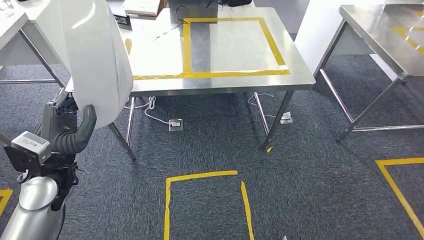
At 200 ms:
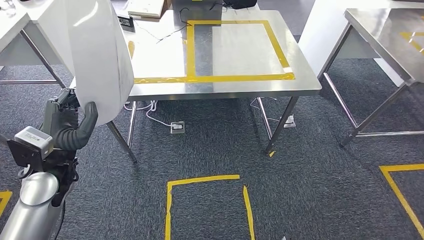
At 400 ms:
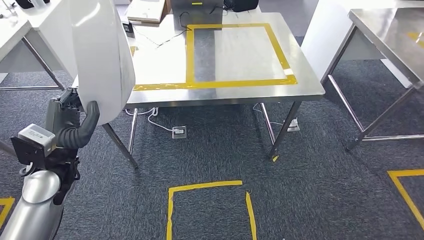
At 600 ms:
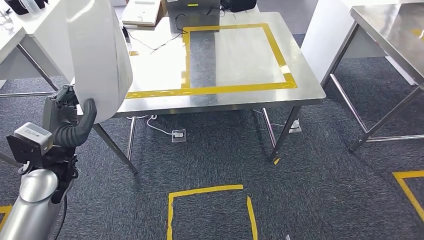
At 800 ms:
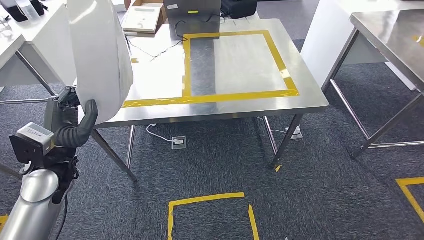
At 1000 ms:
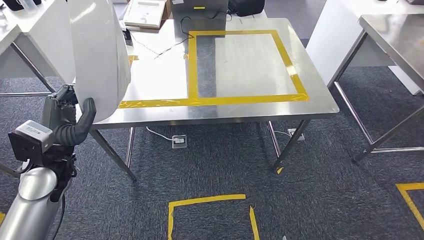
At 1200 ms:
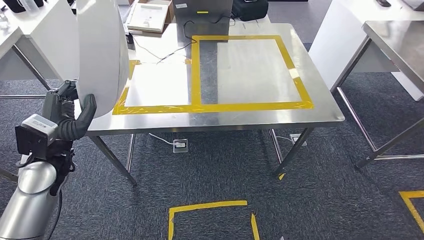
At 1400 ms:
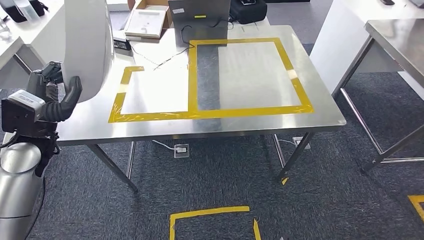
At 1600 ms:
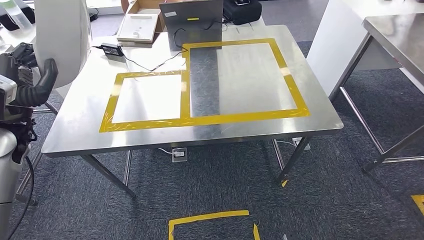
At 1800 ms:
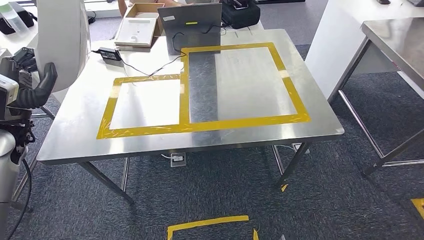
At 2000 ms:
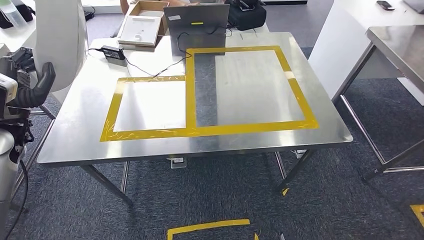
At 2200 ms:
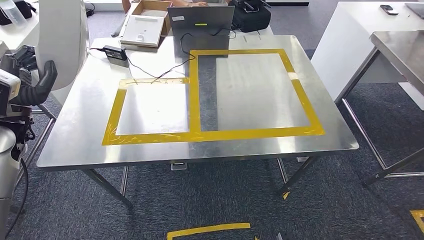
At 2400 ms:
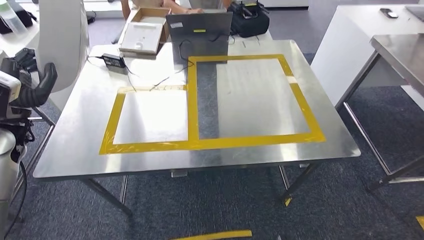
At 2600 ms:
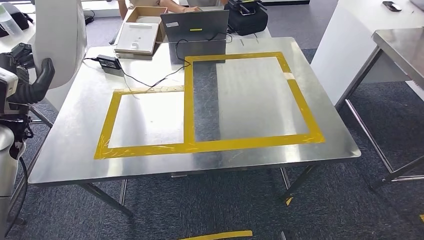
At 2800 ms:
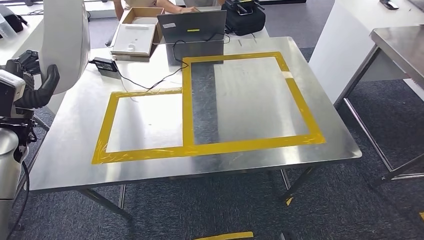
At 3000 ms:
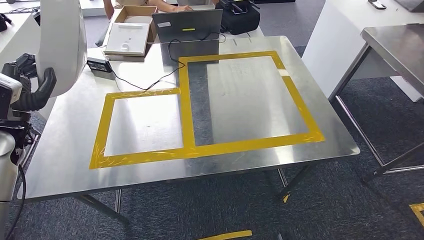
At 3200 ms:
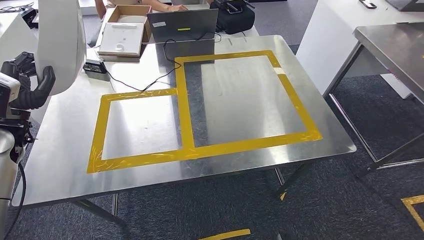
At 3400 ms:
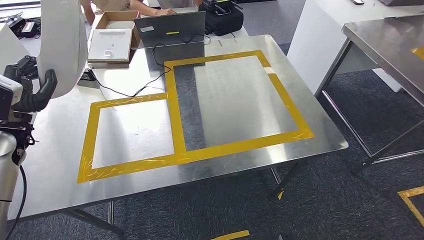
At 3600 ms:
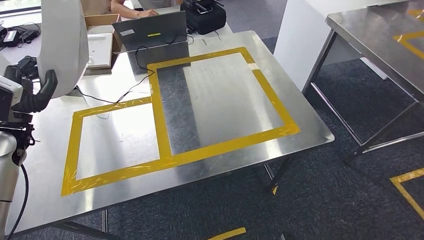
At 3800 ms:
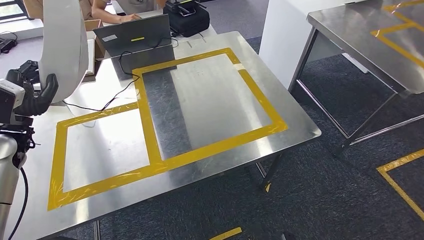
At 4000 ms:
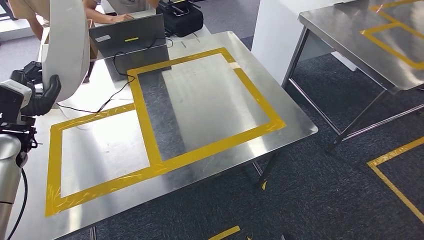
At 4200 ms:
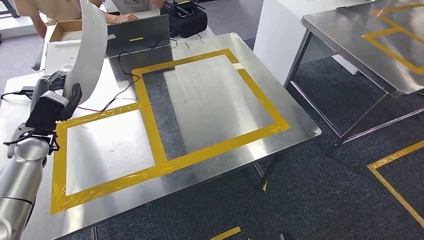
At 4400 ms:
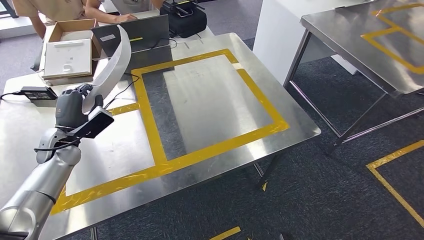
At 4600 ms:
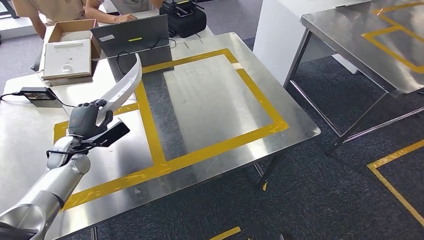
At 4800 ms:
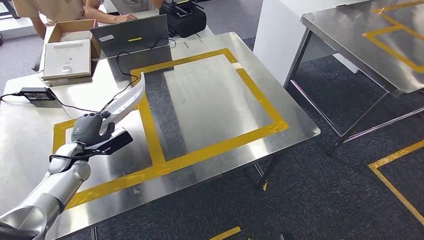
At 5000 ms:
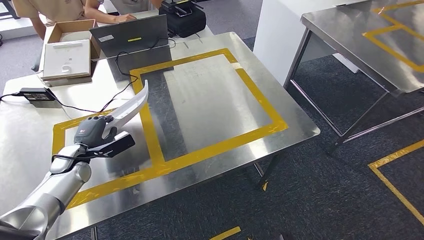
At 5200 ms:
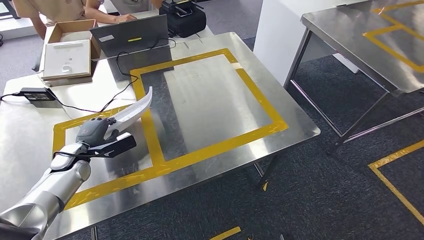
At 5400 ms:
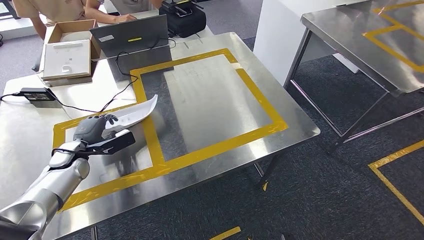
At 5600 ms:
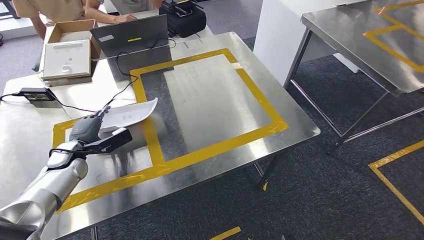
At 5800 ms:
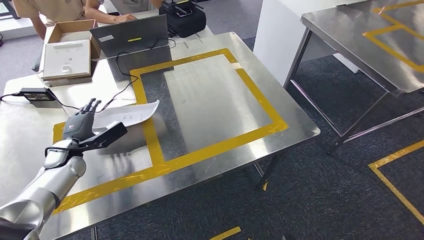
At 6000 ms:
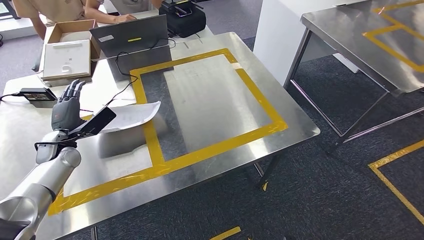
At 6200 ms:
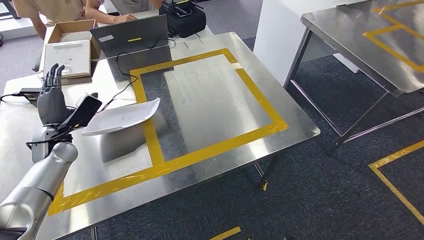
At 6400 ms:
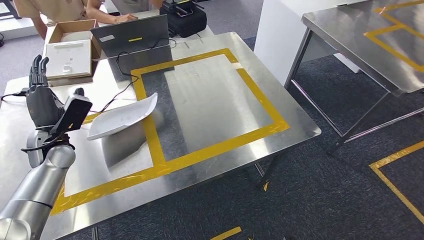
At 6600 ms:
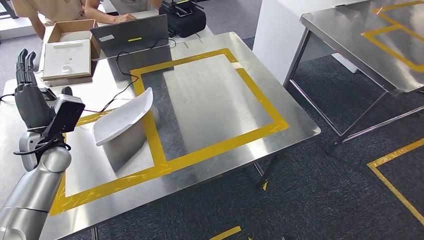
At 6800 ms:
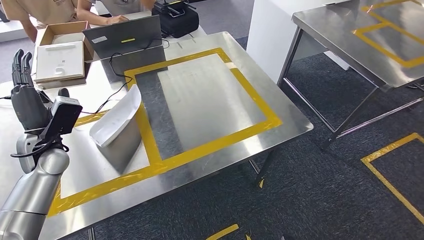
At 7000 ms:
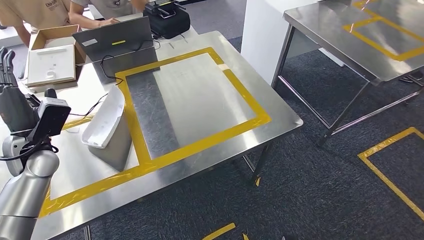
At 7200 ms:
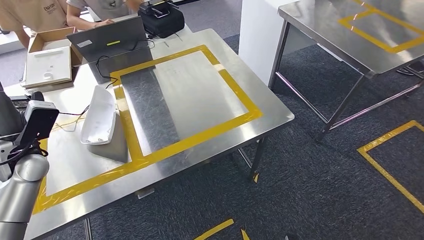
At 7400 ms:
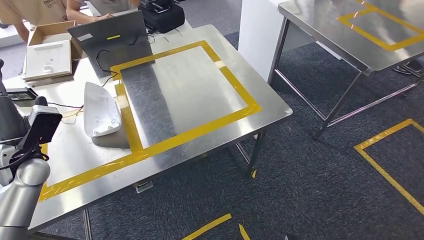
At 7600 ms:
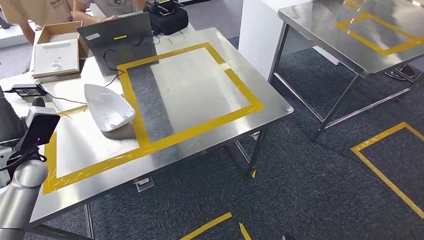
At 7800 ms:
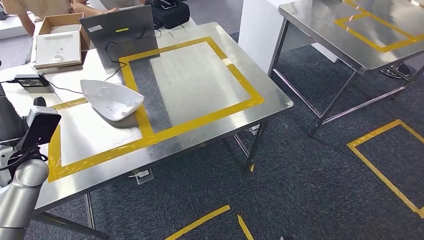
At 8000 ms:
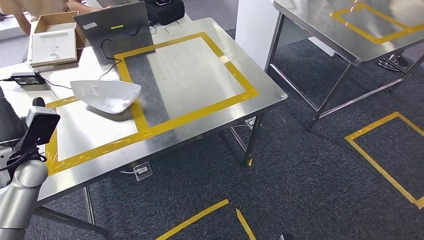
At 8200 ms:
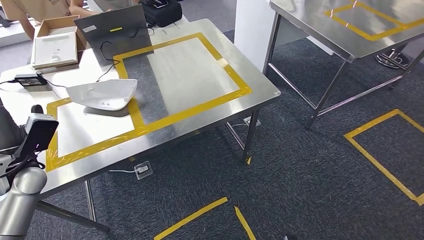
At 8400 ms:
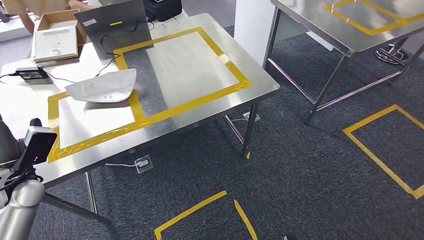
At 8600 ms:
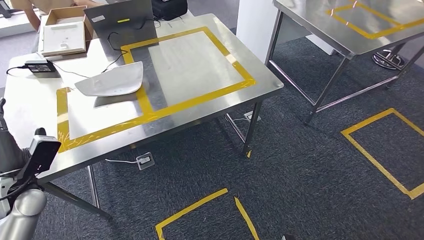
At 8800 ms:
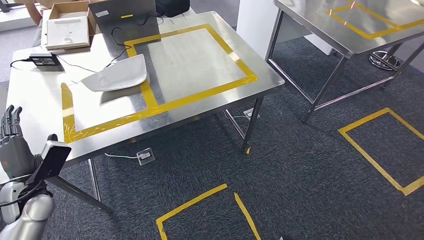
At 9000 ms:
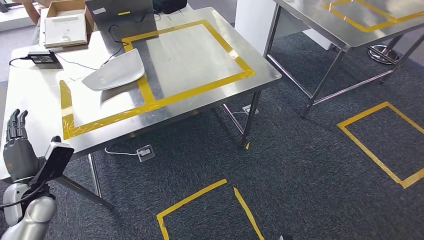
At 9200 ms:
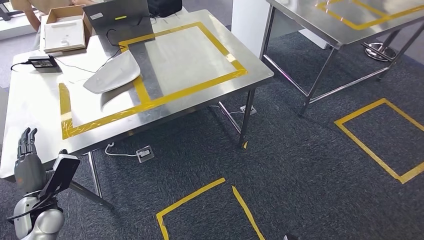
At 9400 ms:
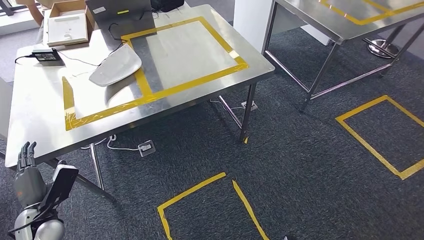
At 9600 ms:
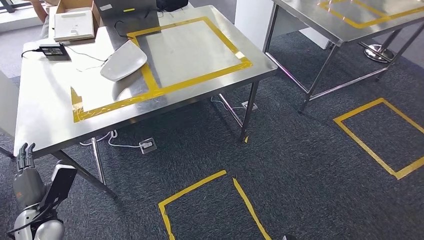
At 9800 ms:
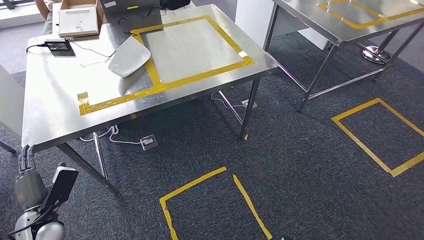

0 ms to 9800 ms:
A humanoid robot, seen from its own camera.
Step, 2200 ms to 6600 ms: Insert the small parts into the corresponding slots on the workbench.

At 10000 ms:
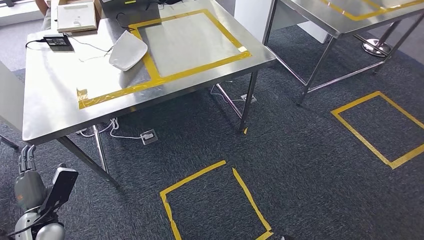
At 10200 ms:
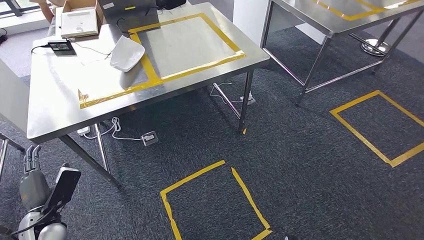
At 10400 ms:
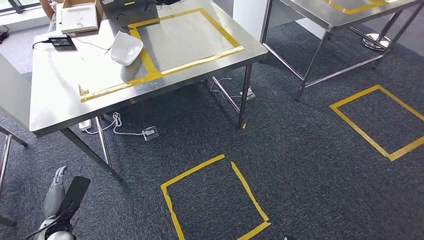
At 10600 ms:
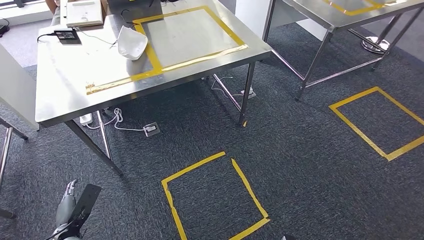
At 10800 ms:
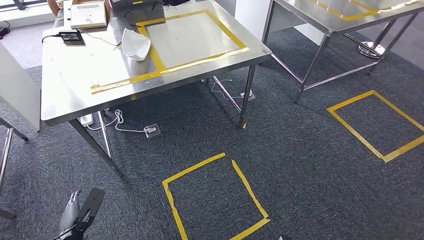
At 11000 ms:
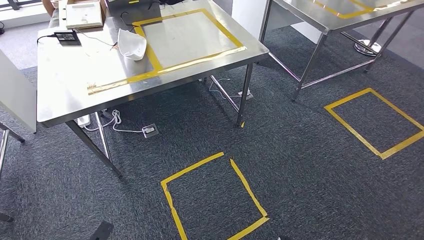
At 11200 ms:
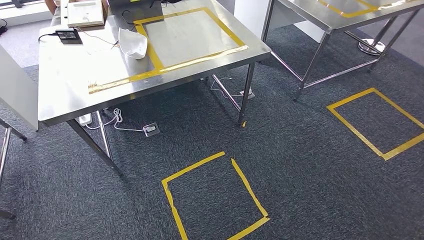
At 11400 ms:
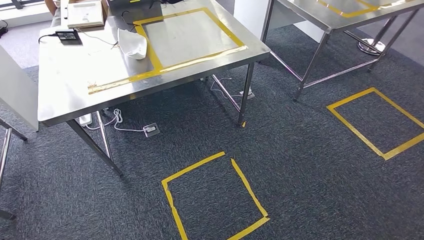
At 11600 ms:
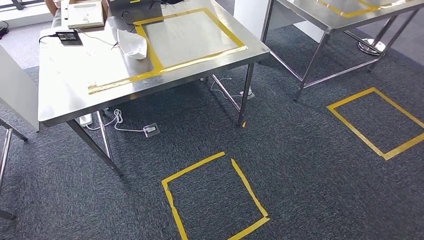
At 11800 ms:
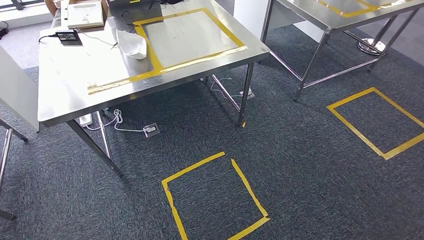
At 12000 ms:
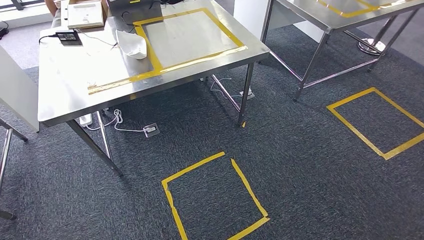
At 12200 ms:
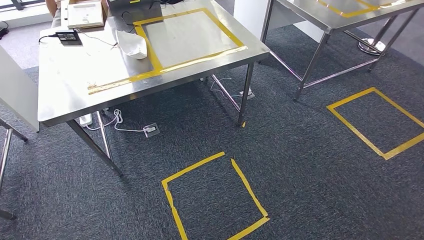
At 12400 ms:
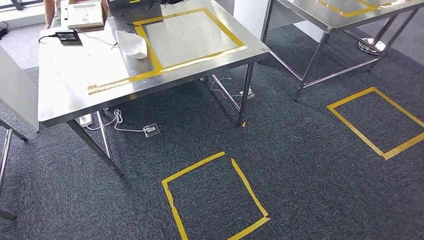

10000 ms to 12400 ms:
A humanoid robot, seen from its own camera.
Step, 10000 ms to 12400 ms: Return to the initial position at the workbench.
11200 ms to 12400 ms: The right hand moves about 5 cm, while the left hand heads backward, covering some 5 cm.
